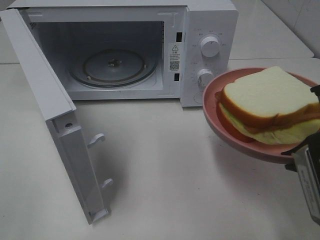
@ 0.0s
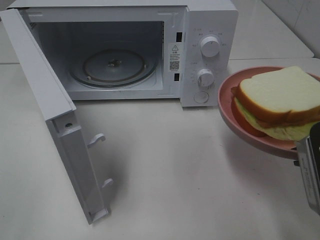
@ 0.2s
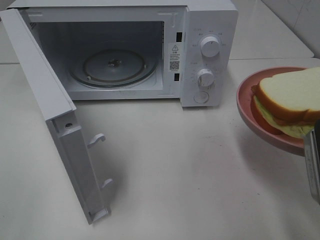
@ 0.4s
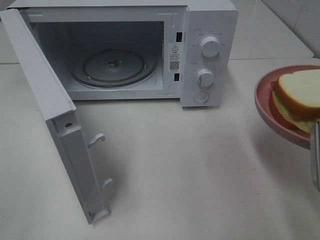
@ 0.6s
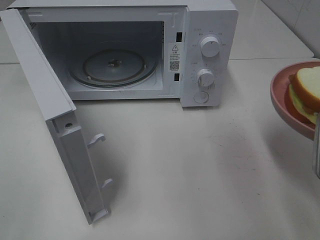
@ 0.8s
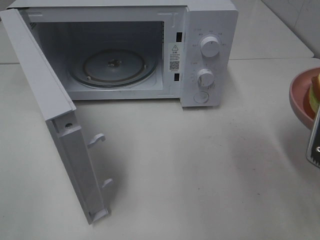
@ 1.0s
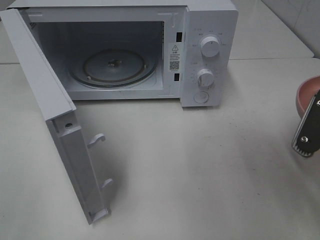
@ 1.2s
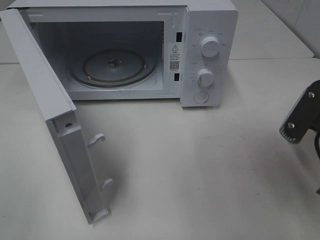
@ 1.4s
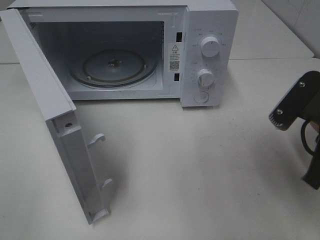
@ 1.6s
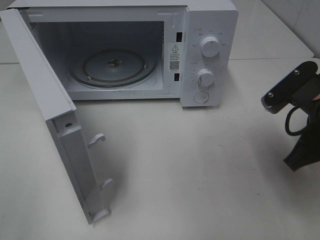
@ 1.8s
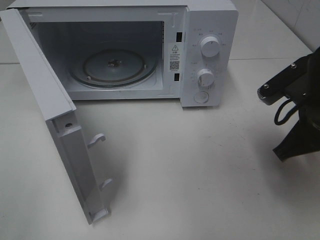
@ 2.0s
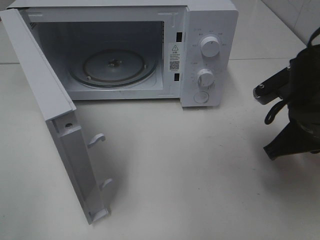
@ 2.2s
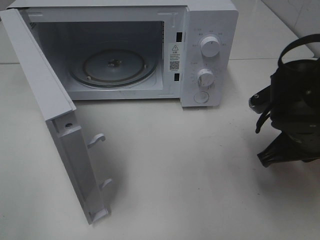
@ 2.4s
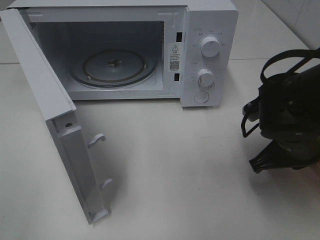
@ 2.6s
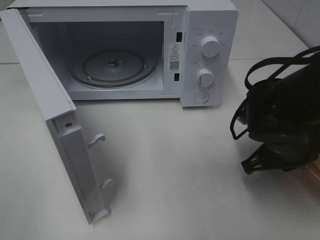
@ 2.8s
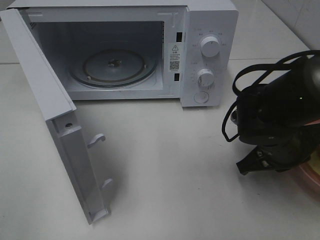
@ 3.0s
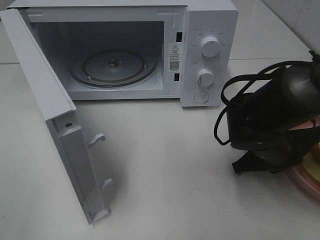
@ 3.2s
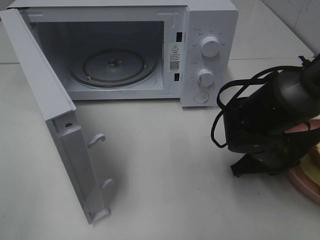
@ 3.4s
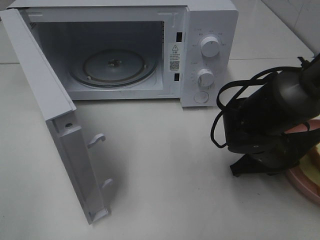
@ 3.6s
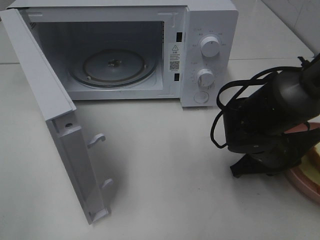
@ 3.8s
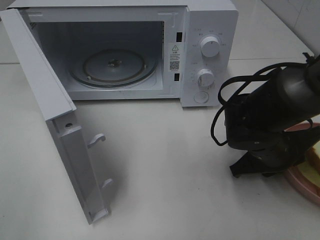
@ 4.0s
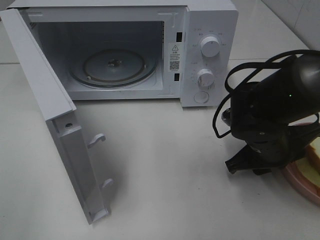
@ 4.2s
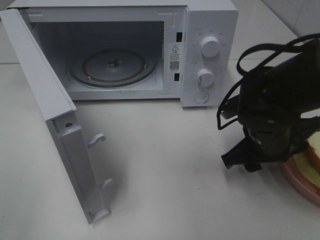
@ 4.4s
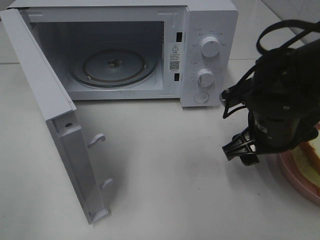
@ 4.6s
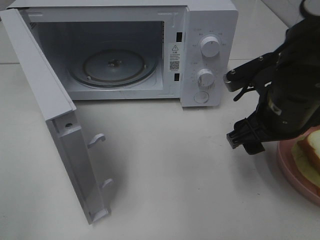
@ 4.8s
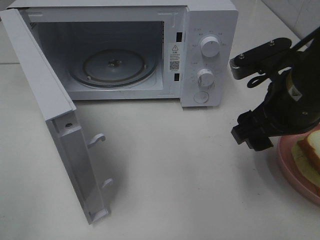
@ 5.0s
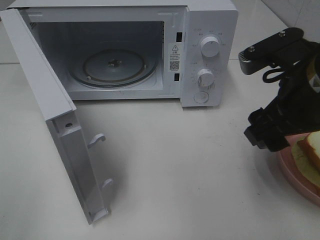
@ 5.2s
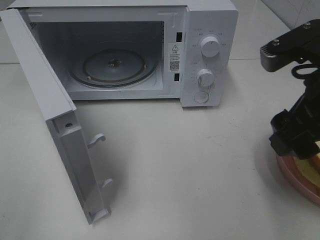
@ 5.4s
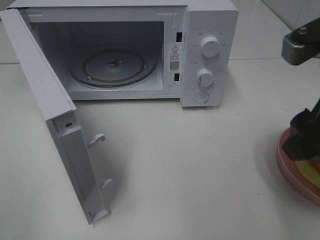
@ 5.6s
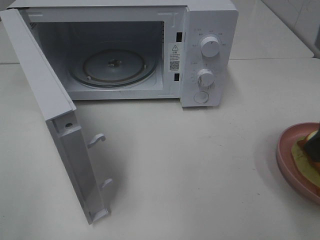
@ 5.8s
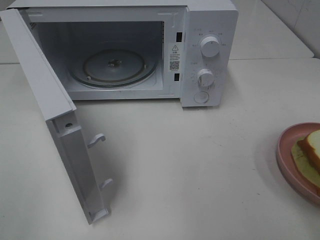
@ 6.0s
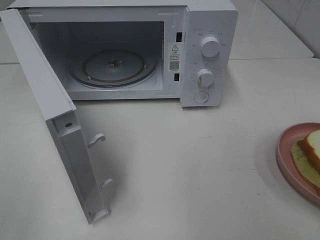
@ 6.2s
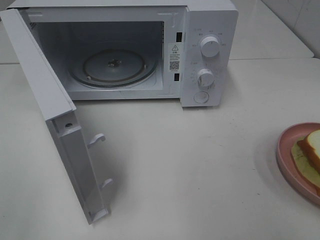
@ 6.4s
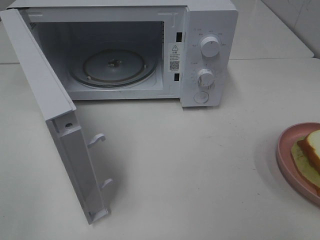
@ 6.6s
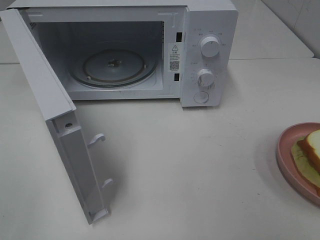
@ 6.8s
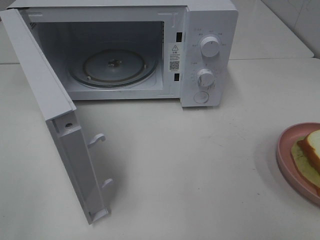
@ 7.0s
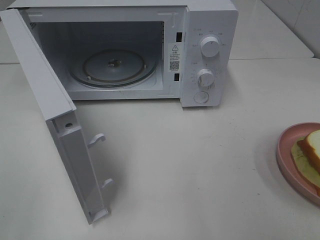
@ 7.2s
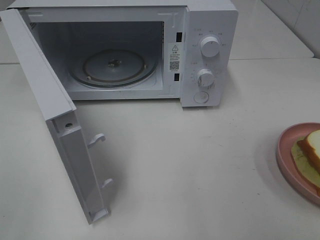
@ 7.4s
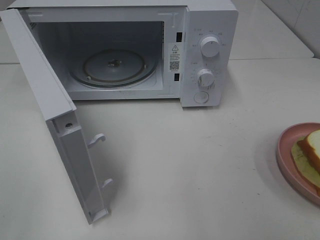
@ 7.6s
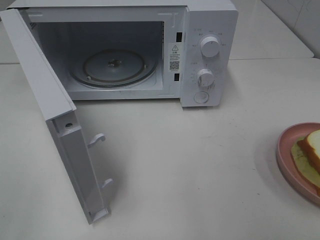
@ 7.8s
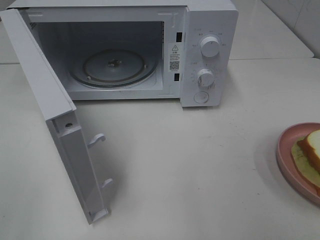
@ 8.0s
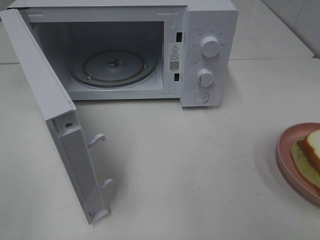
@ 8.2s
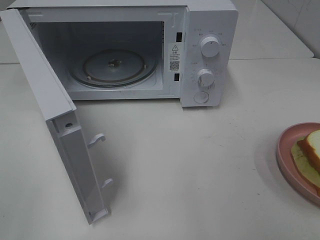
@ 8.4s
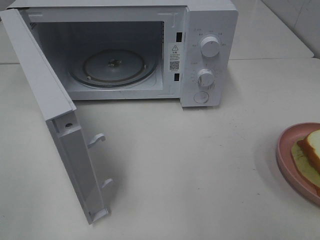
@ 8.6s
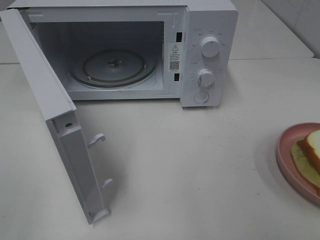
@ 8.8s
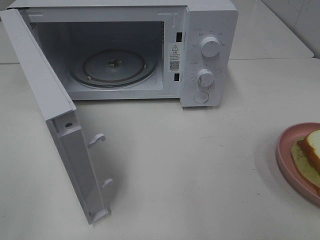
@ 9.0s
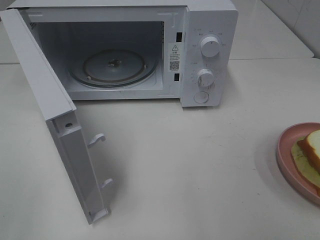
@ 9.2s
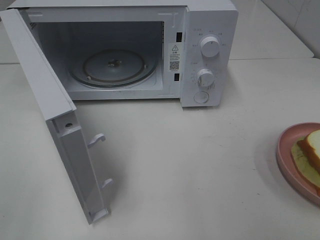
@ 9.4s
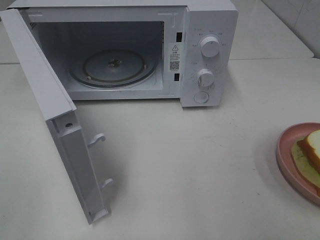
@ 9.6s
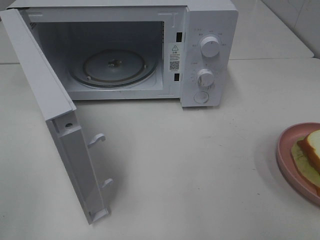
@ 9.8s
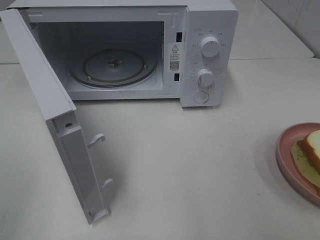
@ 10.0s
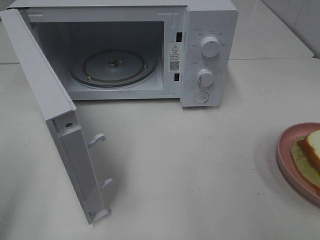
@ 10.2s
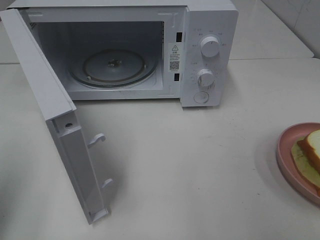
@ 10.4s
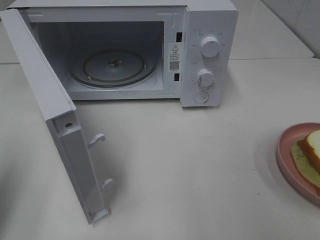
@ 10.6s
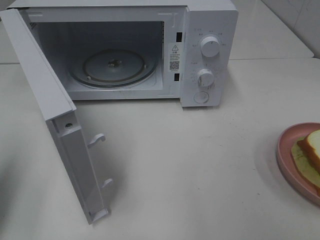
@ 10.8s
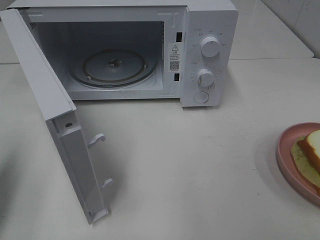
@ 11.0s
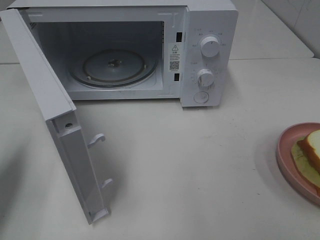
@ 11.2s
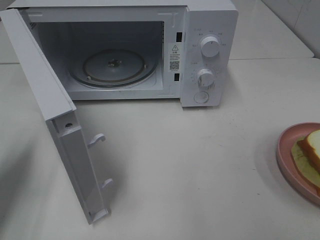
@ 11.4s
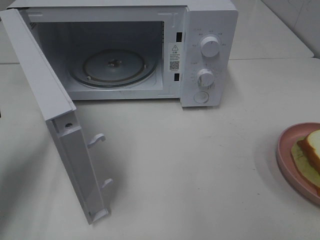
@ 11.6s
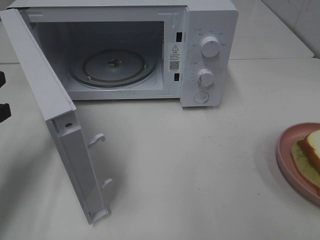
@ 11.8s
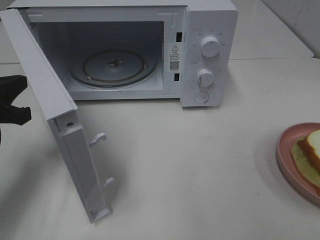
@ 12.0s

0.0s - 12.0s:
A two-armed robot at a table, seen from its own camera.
Task of the whole recording: Heat Sandwich.
Step, 0.0s - 5.0s: Right hand: place the plate on the table.
0.0s - 1.6s: The right gripper travels forward by about 5 cm.
1.6s - 3.0s: The right gripper travels downward and forward by some 10 cm.
3.0s - 4.4s: The right gripper opens.
4.4s - 6.0s: The right gripper moves upward and backward, approximately 25 cm.
7.6s - 9.0s: The two grippers keep their place.
9.0s - 10.4s: The left gripper goes roughly 10 cm forward, and closes up.
10.4s - 12.0s: The left gripper shifts approximately 20 cm forward and downward.

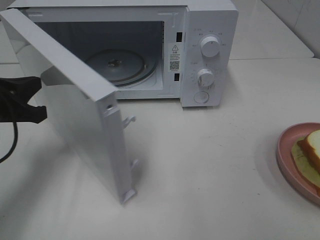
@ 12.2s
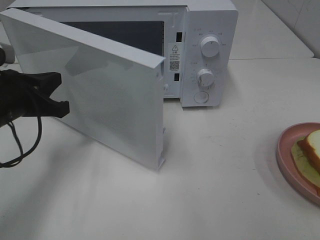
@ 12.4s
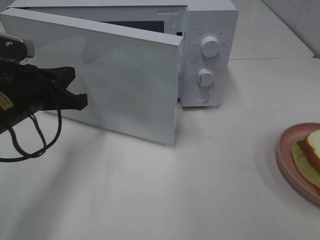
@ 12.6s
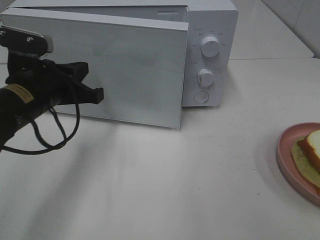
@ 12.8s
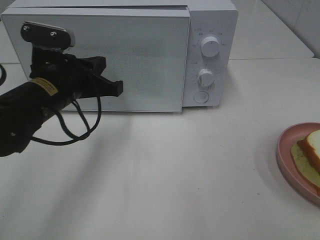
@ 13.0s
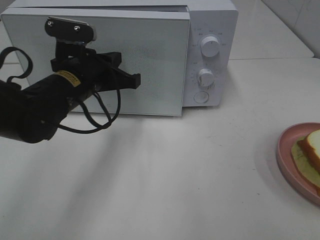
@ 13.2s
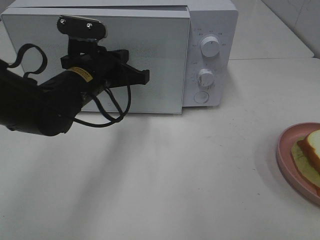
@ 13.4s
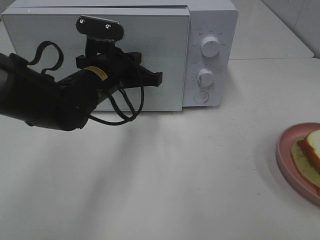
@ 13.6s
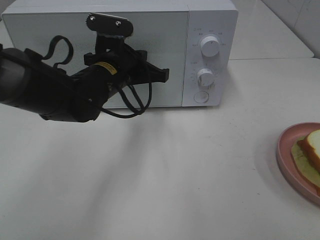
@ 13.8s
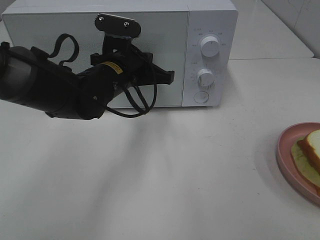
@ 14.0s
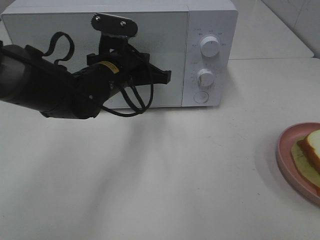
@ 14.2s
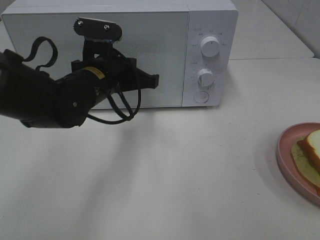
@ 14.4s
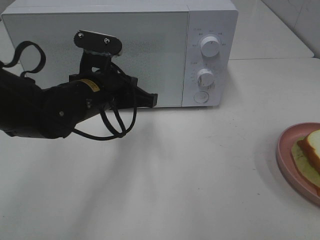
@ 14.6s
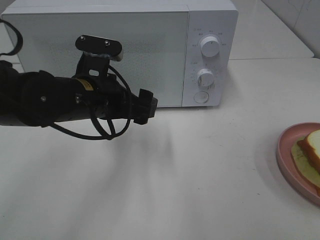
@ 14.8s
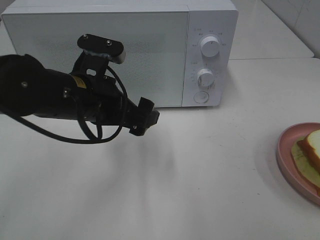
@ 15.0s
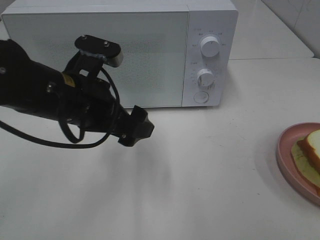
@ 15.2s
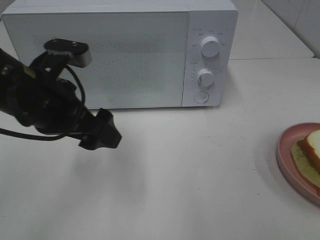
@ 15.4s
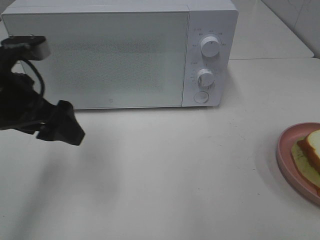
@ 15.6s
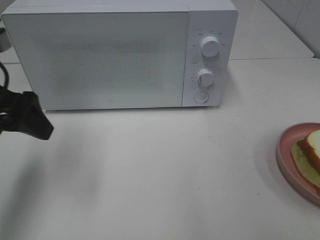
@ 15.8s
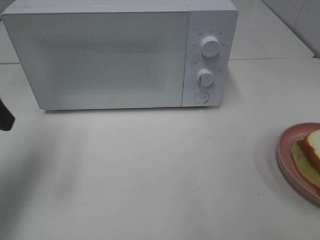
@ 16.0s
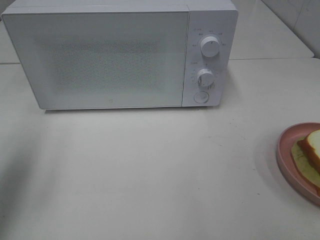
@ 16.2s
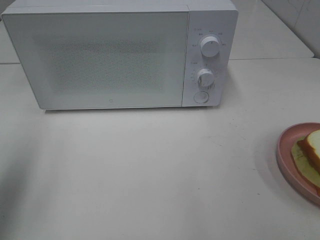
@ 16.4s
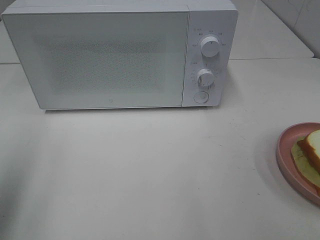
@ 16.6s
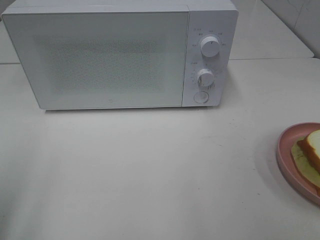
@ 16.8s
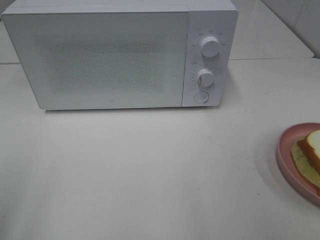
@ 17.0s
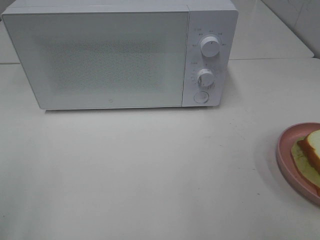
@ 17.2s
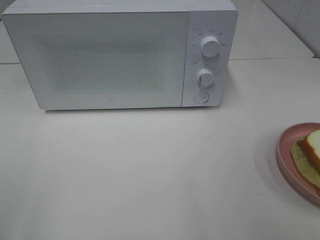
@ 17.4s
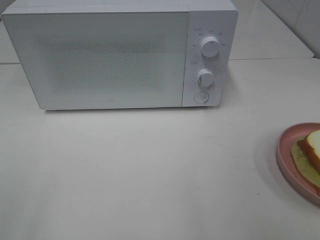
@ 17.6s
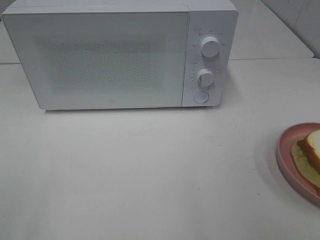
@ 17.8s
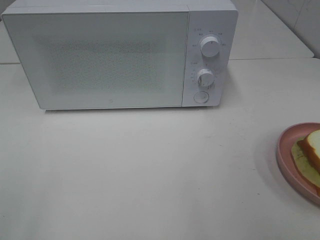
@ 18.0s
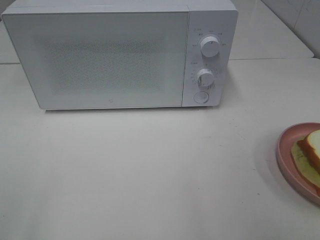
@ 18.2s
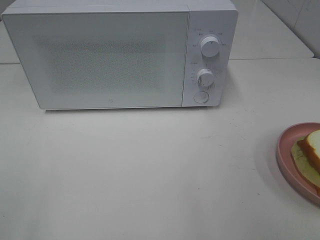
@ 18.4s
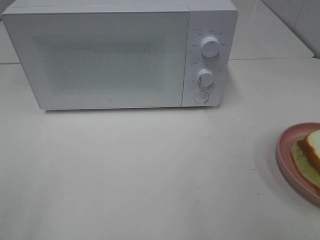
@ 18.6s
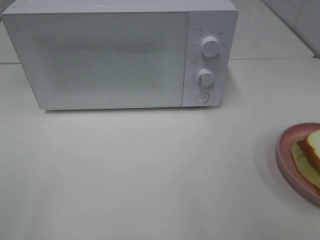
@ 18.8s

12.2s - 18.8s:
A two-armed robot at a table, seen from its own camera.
Task of the whole recording: Heat Sandwich.
Step, 12.2s - 14.2s: Left hand: close the microwave door.
12.2s - 13.8s: The left gripper goes roughly 20 cm to the right and forward.
13.8s - 15.4s: The left gripper heads backward, to the left and upward, covering roughly 15 cm, and opens up.
15.4s - 17.2s: The left gripper travels backward and to the left by roughly 25 cm.

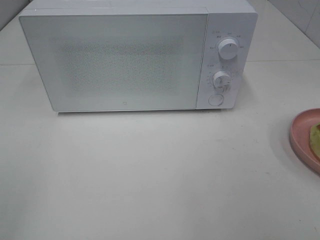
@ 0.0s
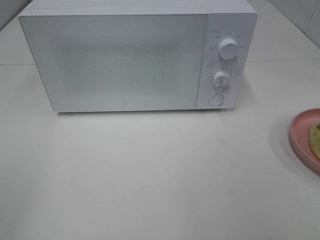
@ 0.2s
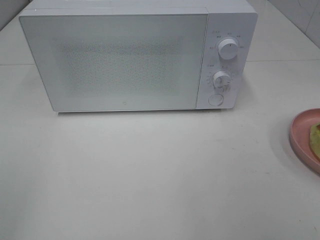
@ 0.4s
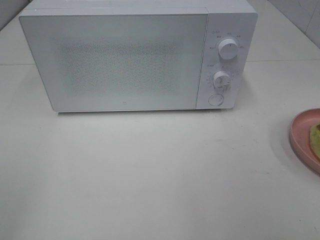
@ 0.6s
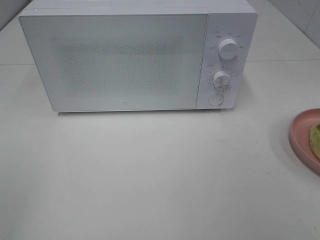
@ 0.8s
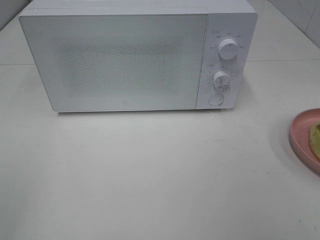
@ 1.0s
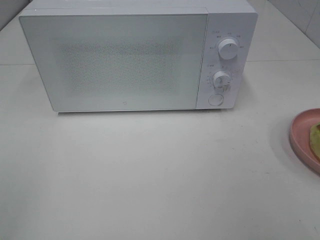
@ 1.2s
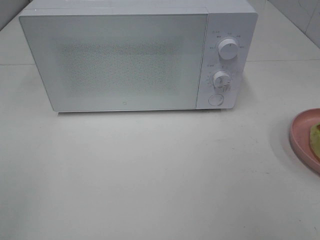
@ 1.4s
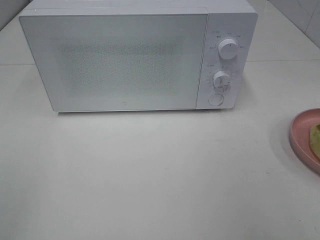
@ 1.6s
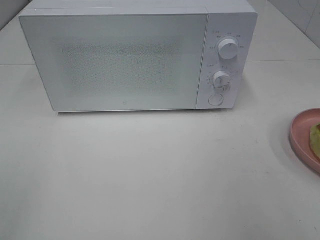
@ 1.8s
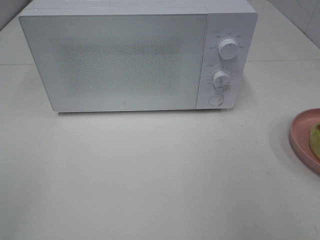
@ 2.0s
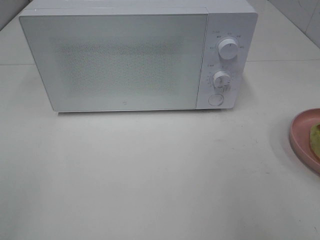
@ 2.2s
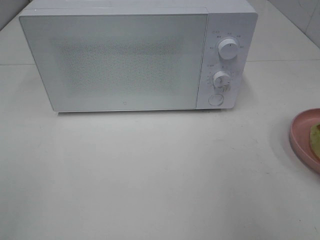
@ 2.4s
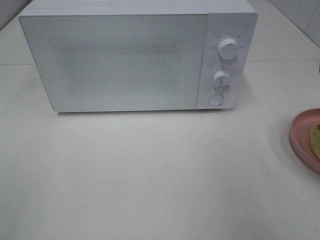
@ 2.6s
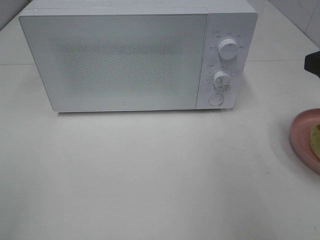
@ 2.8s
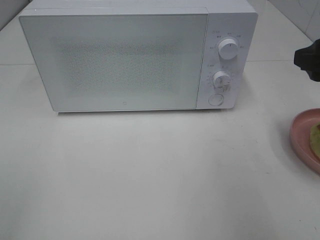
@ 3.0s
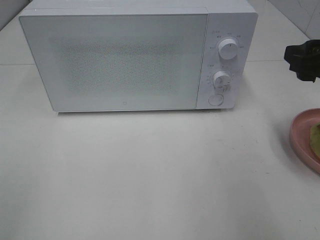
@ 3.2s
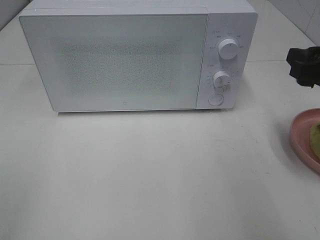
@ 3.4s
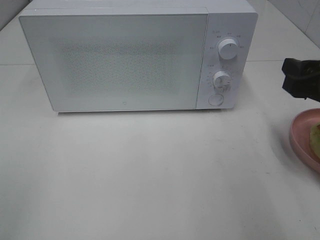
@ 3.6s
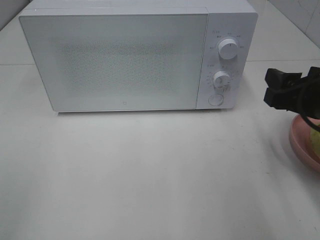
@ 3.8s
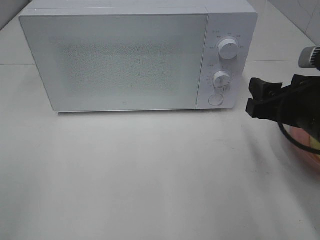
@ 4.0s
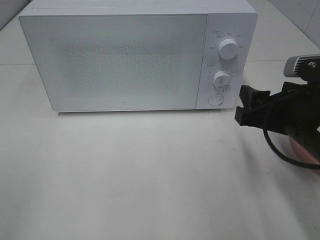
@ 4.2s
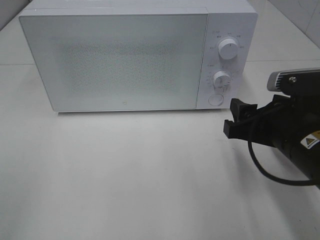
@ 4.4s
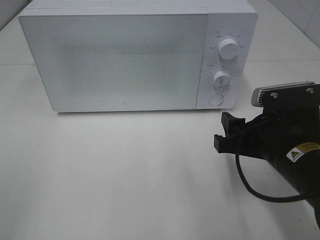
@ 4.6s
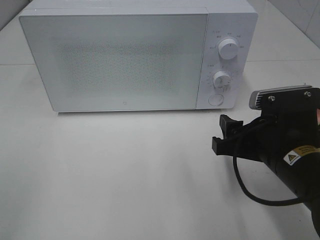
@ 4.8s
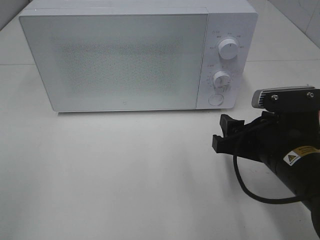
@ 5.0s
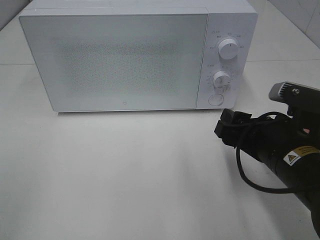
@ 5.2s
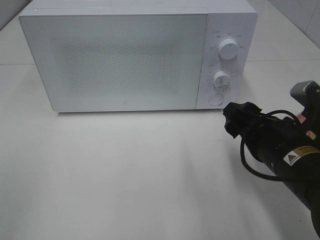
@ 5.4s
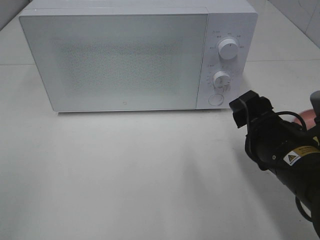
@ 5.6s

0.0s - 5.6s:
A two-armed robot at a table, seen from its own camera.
Task of the whole recording: Heat Sandwich.
2.8s - 4.2s: The right gripper heads downward and to the left, covering approximately 10 cm.
